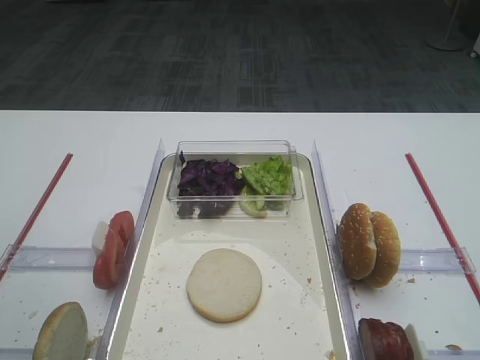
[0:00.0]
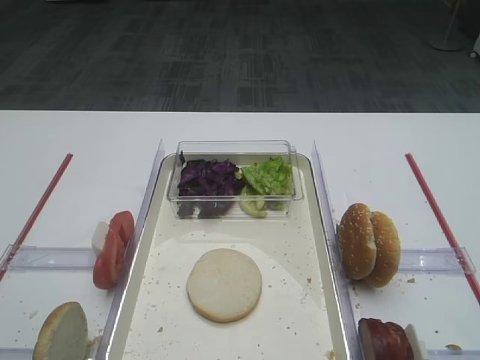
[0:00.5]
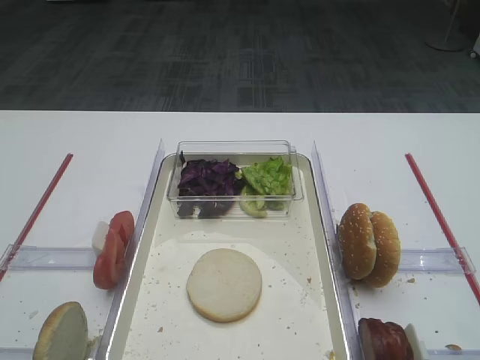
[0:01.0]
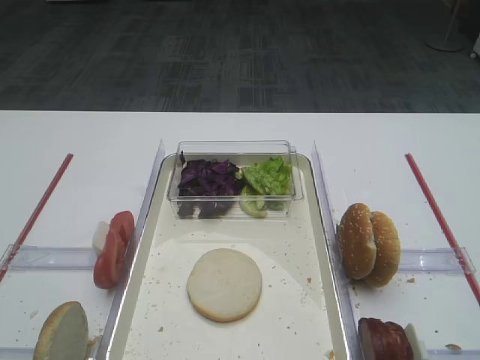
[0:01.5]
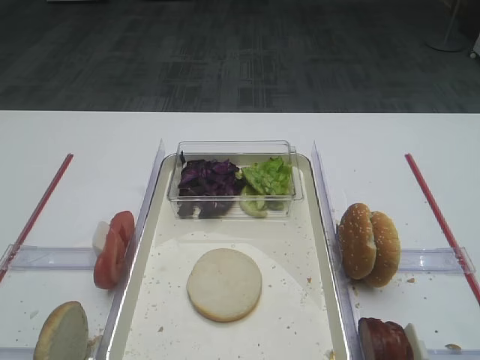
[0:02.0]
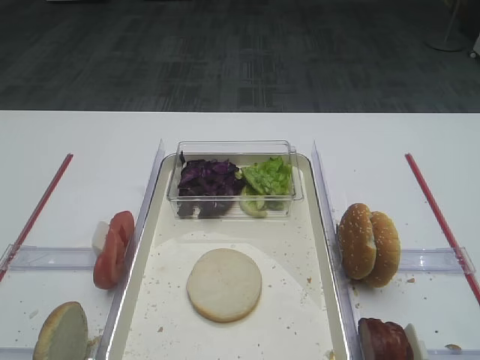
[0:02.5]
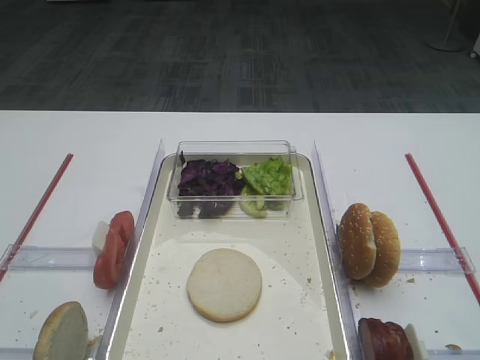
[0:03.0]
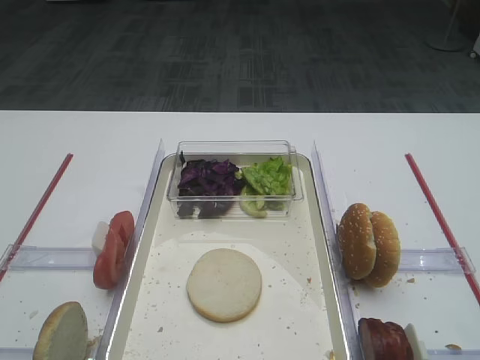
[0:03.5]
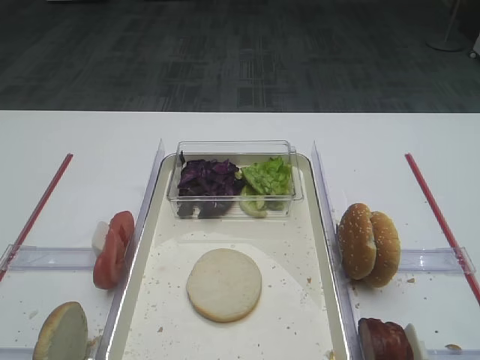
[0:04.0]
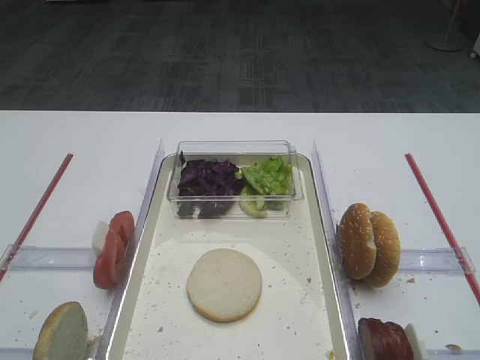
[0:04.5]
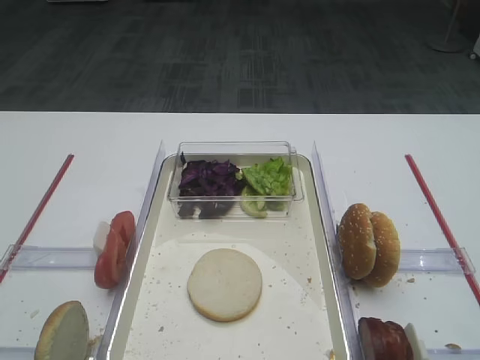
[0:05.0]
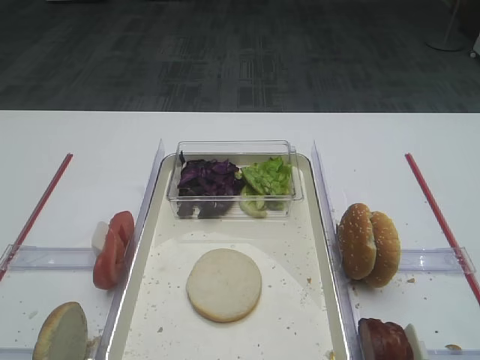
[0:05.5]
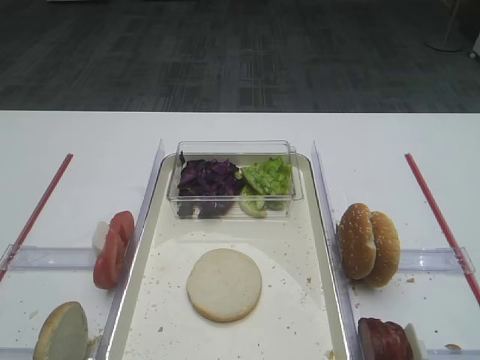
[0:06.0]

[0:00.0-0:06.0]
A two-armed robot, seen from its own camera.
0:04.0 to 0:06.0: Both grippers stay put.

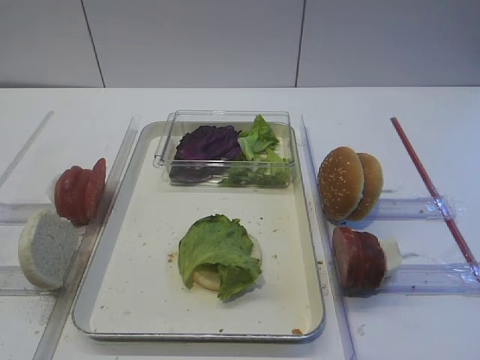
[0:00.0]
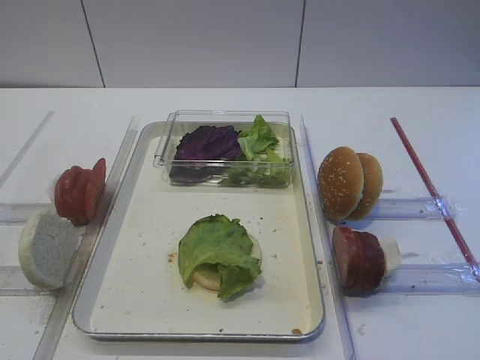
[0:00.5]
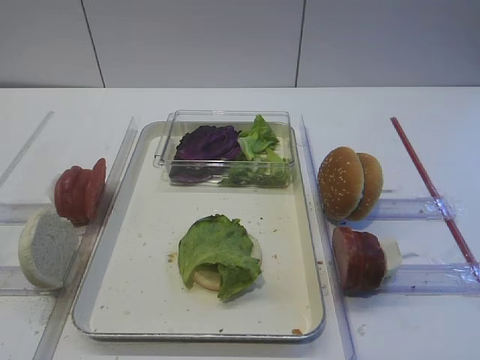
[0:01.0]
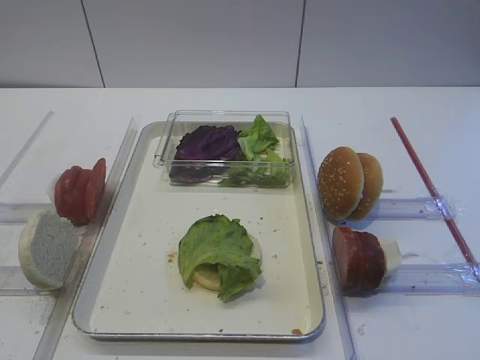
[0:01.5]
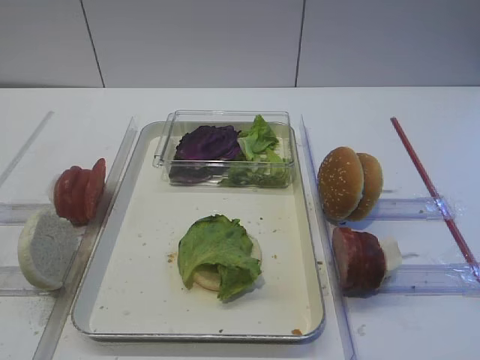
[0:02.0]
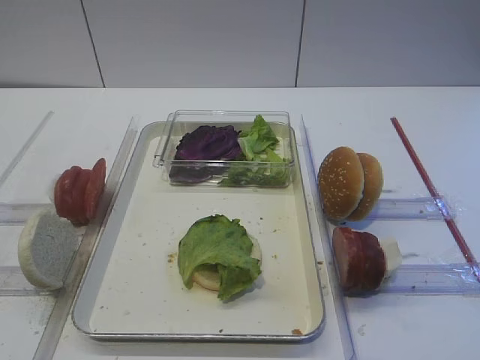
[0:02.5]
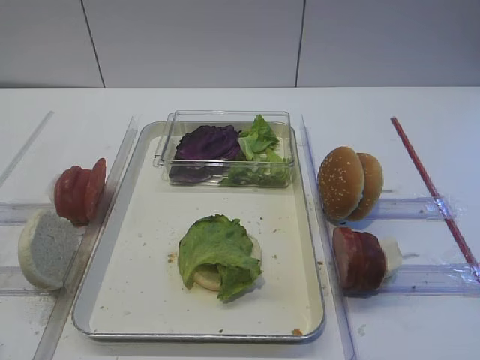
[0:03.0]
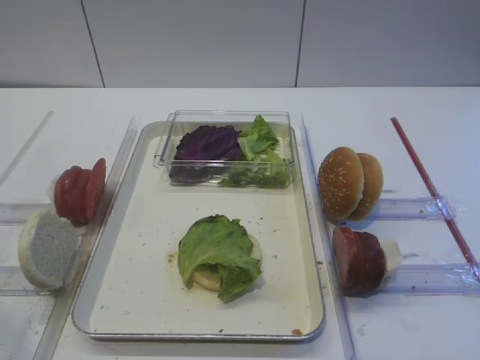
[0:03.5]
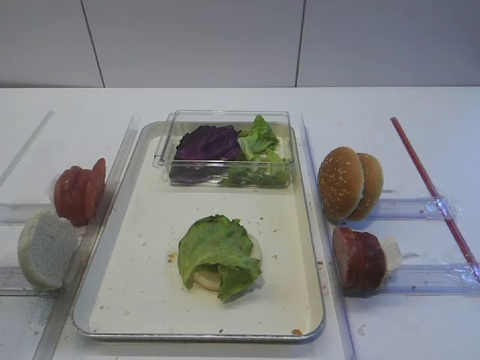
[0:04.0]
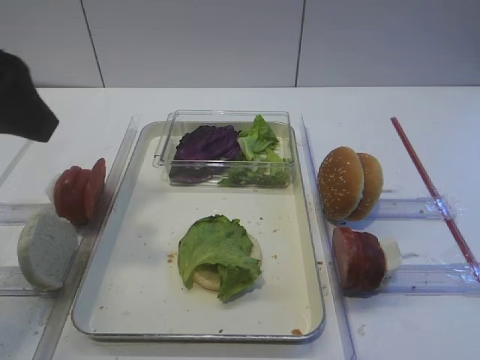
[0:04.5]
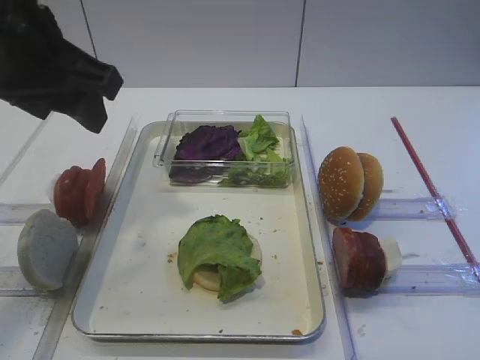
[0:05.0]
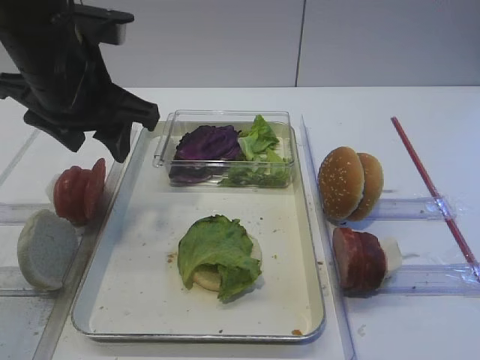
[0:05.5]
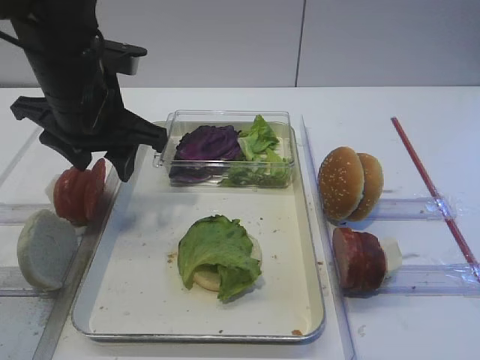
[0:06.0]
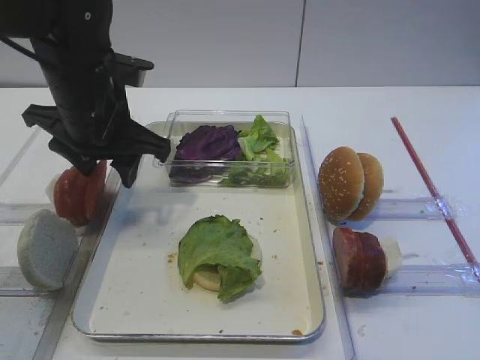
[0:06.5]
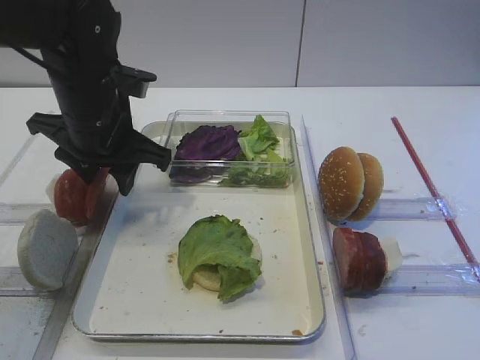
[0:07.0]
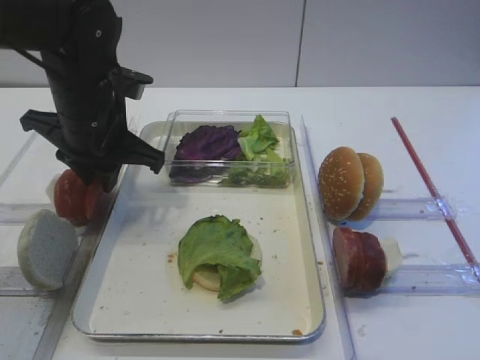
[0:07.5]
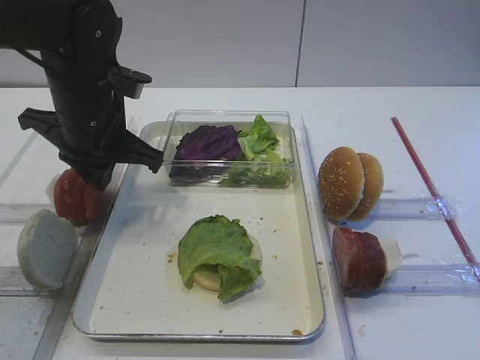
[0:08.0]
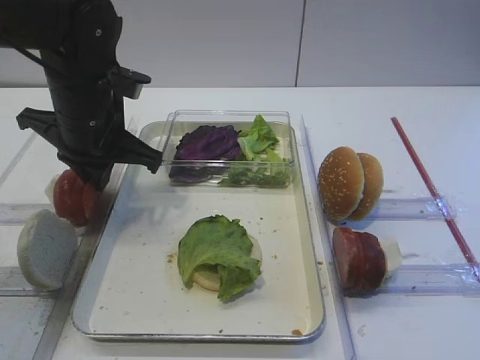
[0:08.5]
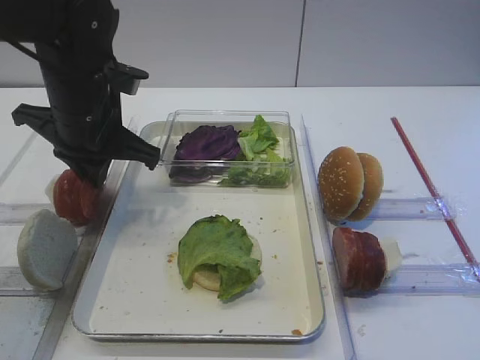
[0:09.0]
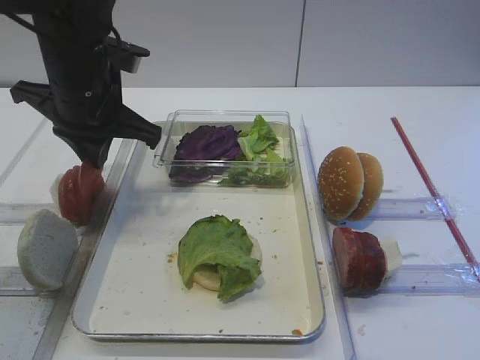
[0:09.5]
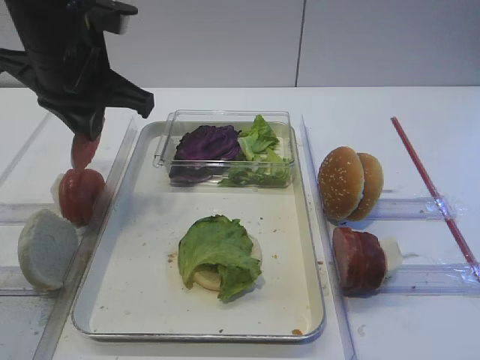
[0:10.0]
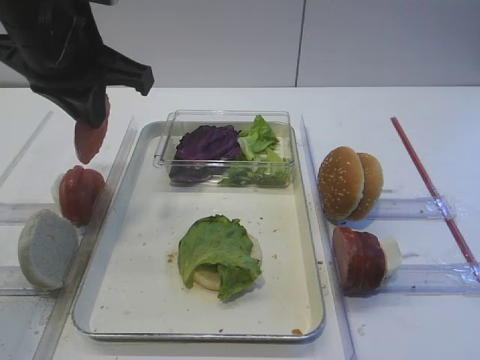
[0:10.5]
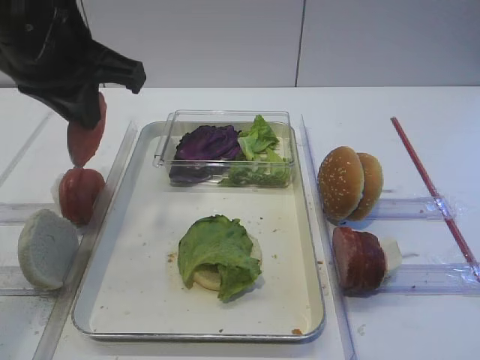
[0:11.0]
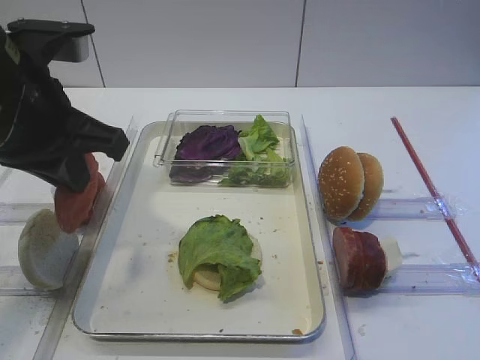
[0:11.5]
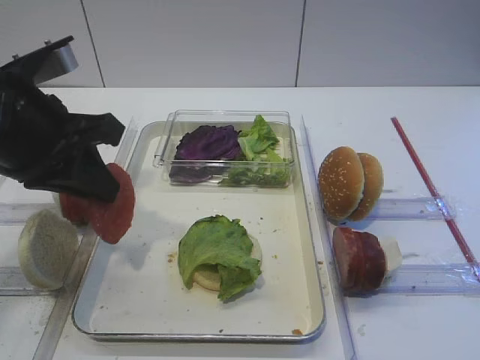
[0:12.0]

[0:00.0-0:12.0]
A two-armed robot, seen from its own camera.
Step, 0:00.0 to 0:09.5: Pick up the tomato slice with the left gripper.
0:02.0 to 0:04.0: The left gripper shifts some 15 cm upward and forward.
0:04.0 to 0:06.0: The left gripper goes approximately 25 cm forward, to the right and downward.
0:06.0 to 0:08.0: The left gripper closes up.
0:08.0 to 0:10.0: The left gripper moves upward, about 5 cm.
0:10.0 to 0:12.0: The left gripper goes about 10 cm backward.

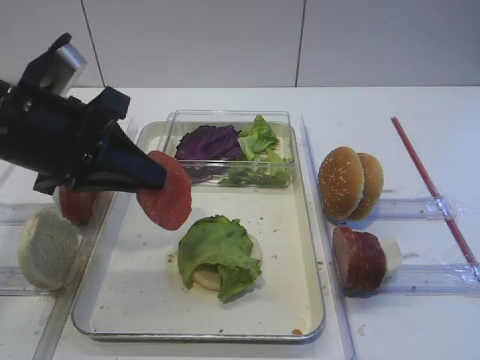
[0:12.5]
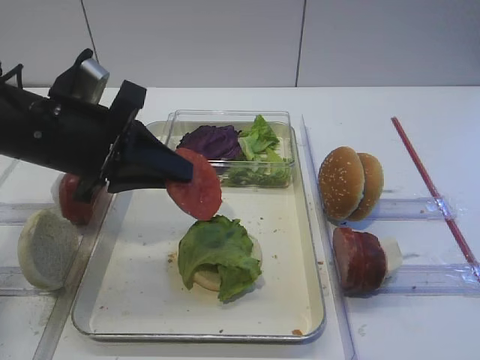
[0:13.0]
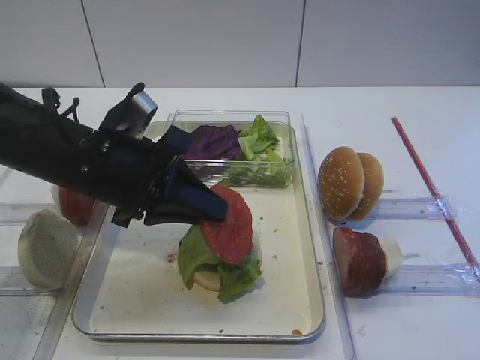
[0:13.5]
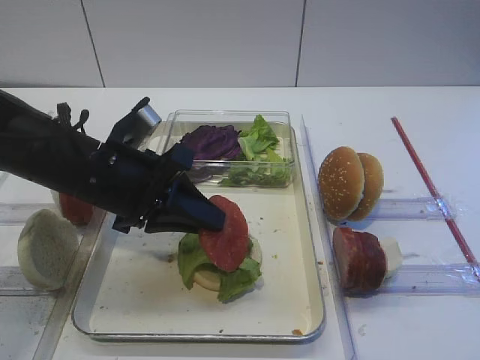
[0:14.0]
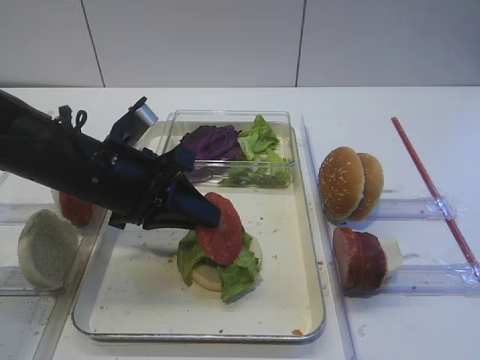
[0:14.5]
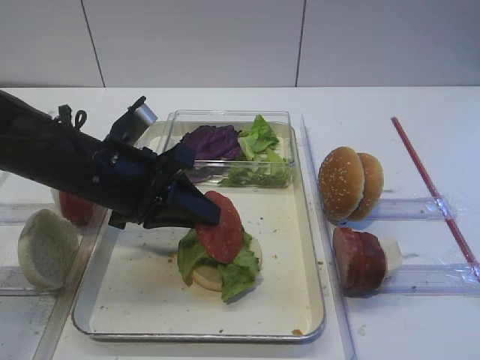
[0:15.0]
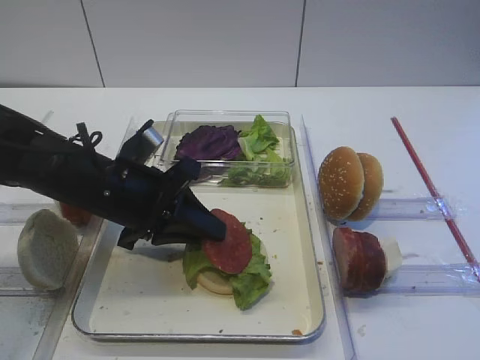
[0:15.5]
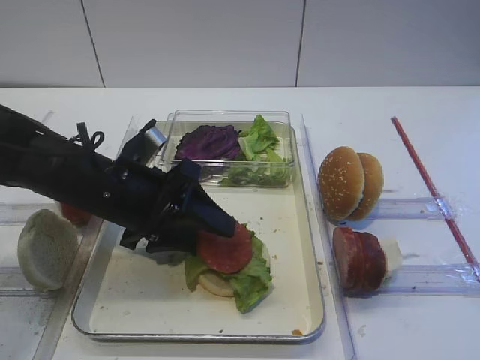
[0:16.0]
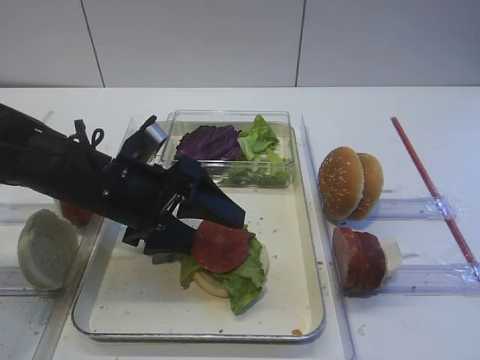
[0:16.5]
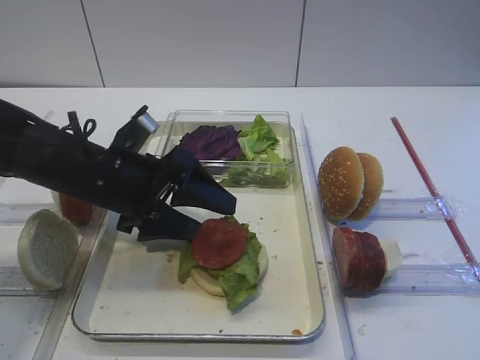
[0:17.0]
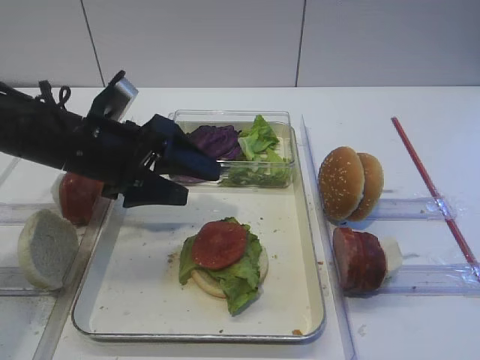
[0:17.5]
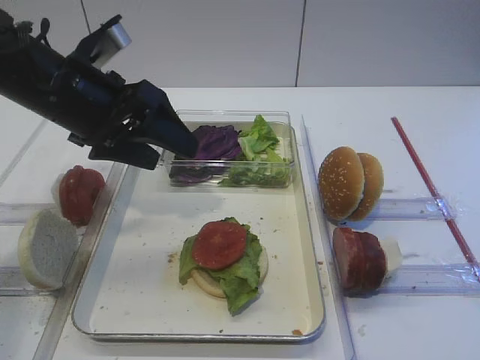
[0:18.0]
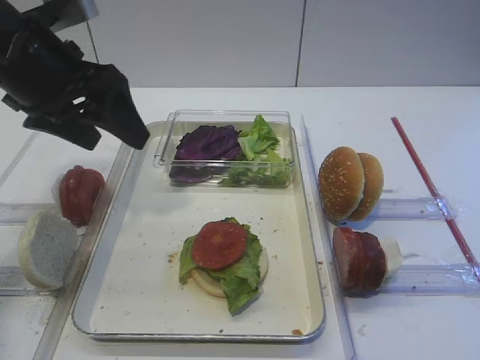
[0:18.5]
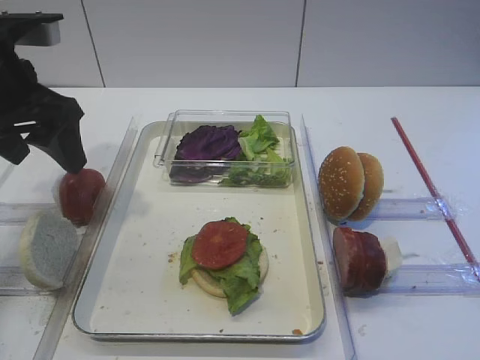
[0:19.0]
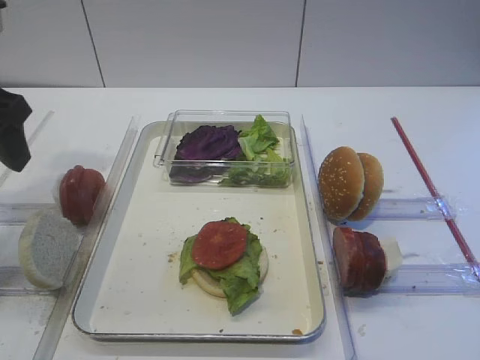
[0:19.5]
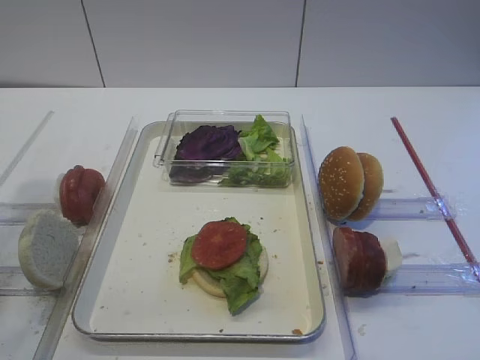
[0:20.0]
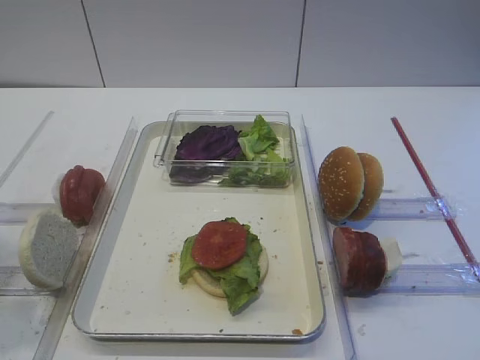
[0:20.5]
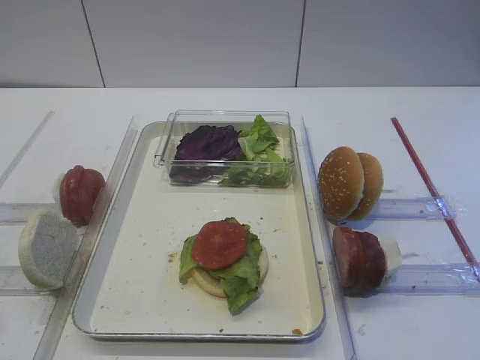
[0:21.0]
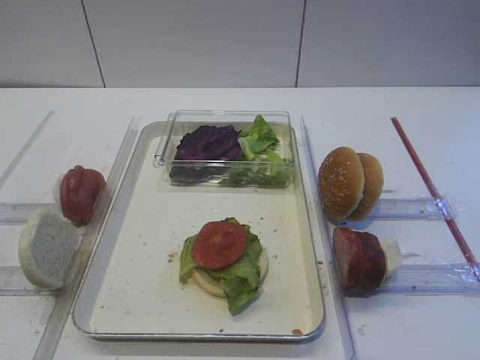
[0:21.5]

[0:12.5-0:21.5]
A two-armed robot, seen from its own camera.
Step, 0:12.5 to 0:17.0: Place the tomato slice on the lettuce leaf with the left gripper.
0:12.5 to 0:14.5: The left gripper heads downward, covering roughly 5 cm.
0:14.5 to 0:17.0: The left gripper opens up.
0:17.0 to 0:19.5: The left gripper is displaced upward and to the left by roughly 20 cm.
0:19.5 to 0:21.5: The left gripper shifts about 25 cm backward.
